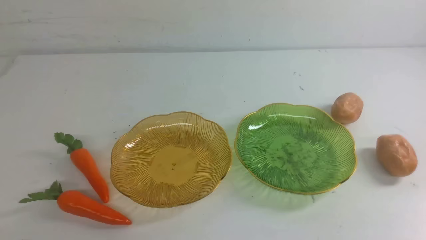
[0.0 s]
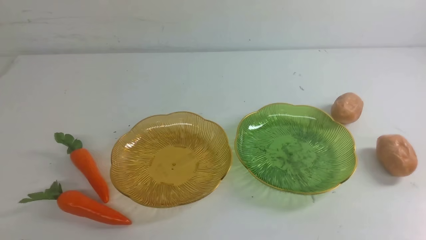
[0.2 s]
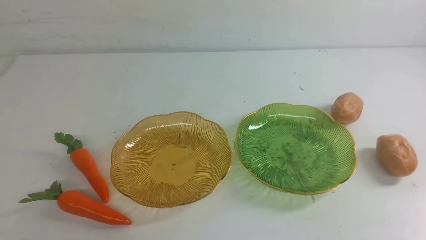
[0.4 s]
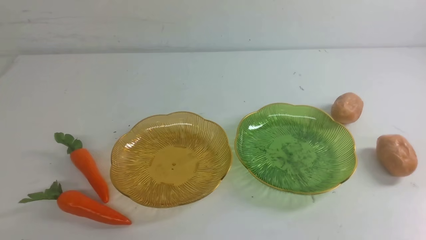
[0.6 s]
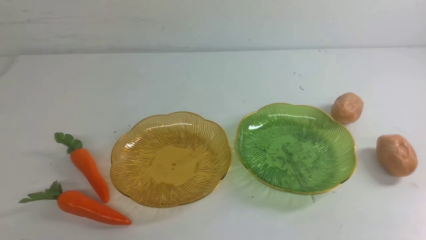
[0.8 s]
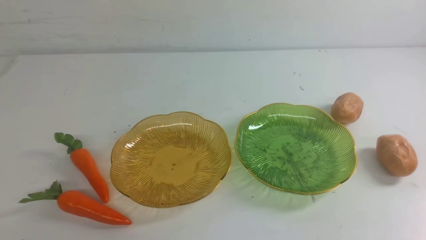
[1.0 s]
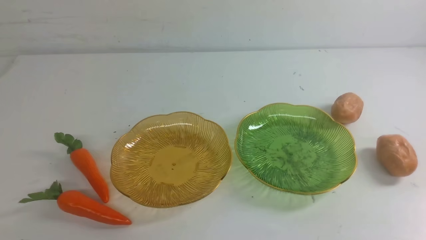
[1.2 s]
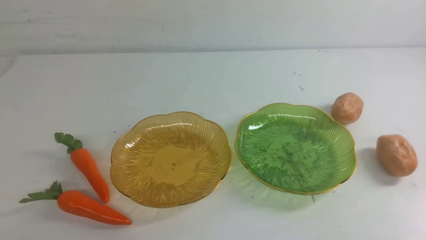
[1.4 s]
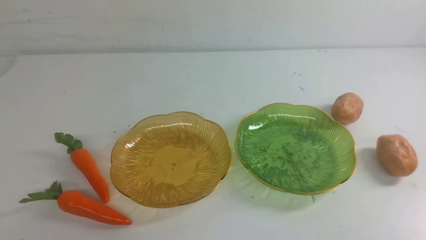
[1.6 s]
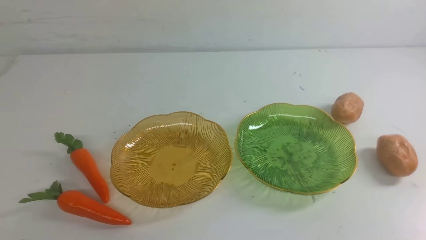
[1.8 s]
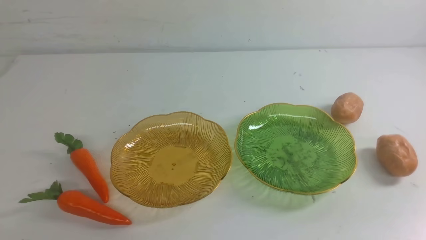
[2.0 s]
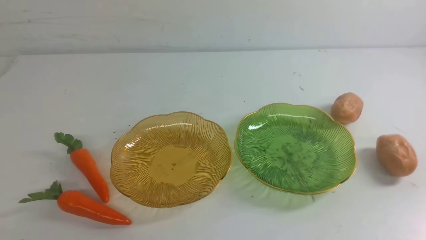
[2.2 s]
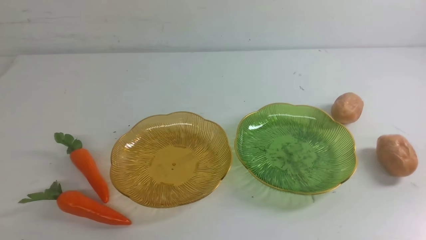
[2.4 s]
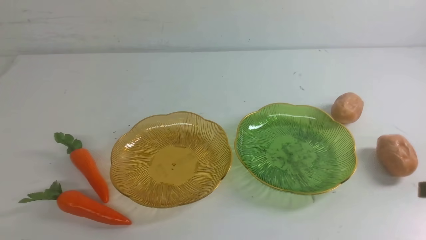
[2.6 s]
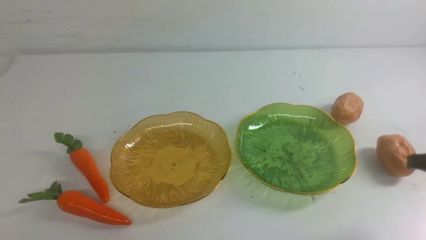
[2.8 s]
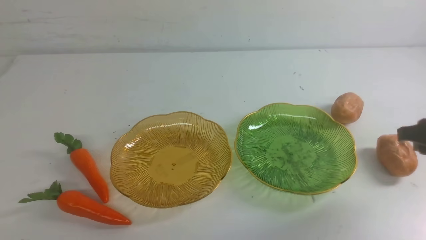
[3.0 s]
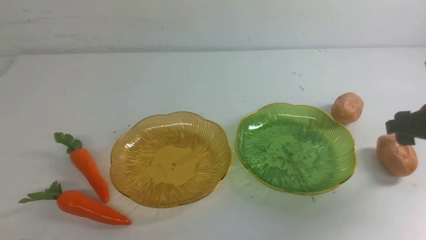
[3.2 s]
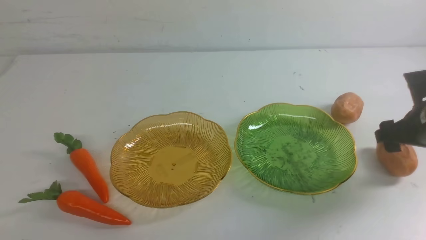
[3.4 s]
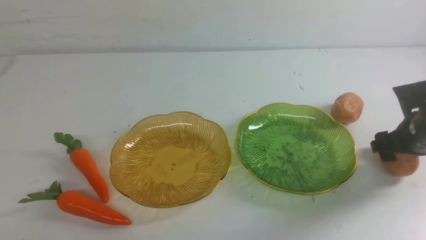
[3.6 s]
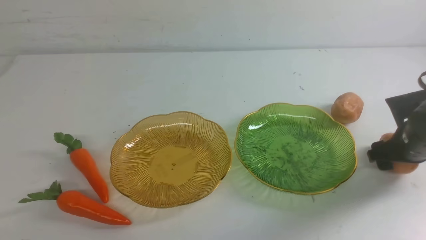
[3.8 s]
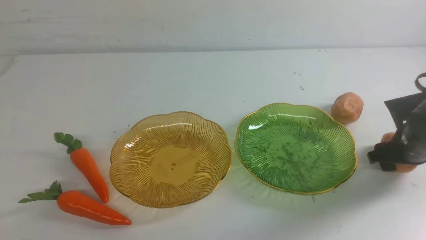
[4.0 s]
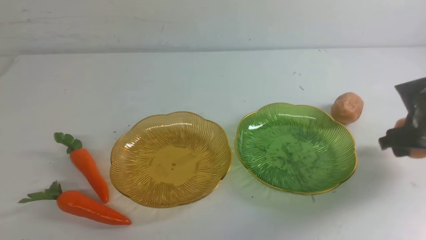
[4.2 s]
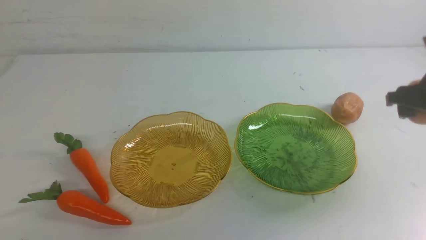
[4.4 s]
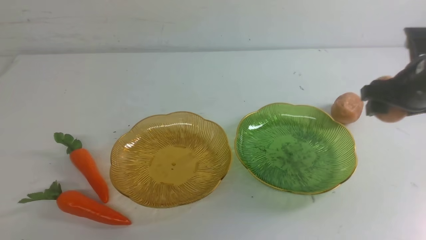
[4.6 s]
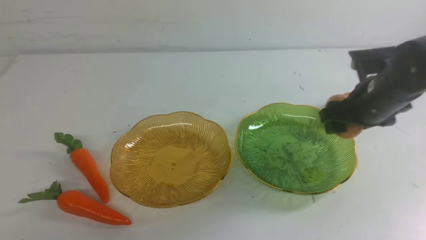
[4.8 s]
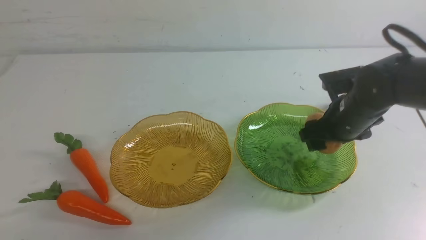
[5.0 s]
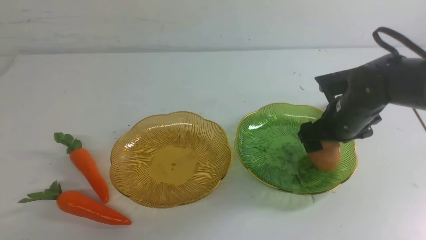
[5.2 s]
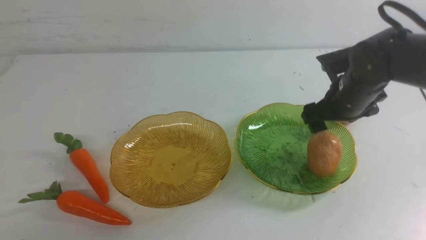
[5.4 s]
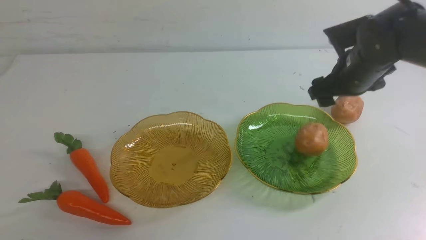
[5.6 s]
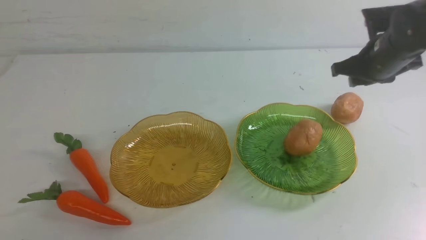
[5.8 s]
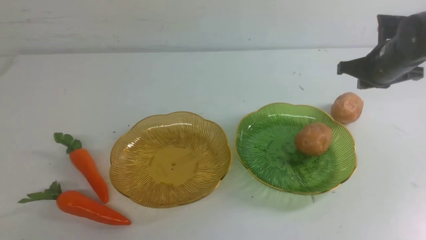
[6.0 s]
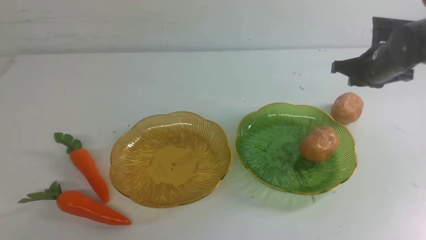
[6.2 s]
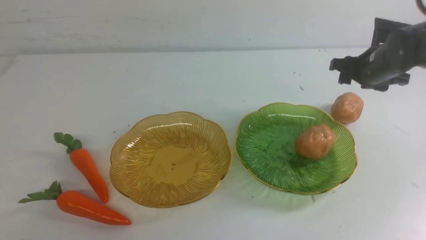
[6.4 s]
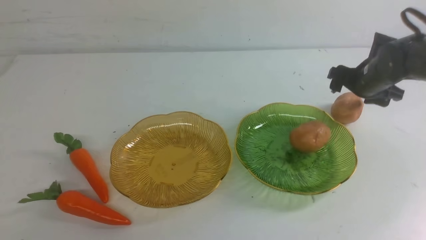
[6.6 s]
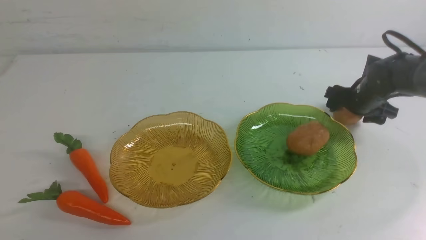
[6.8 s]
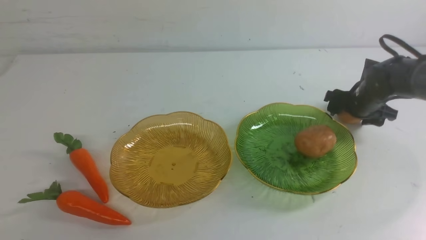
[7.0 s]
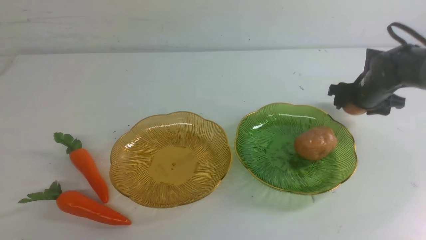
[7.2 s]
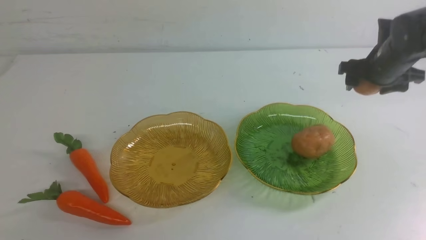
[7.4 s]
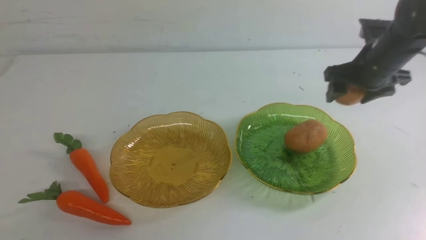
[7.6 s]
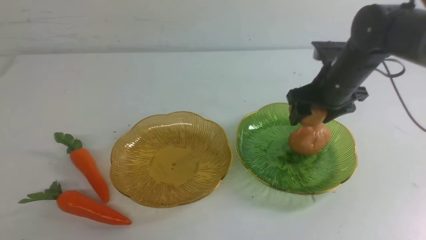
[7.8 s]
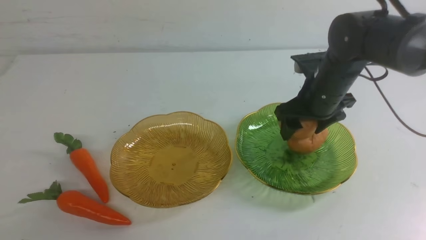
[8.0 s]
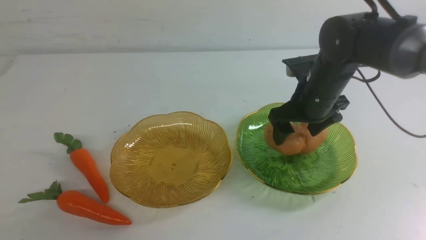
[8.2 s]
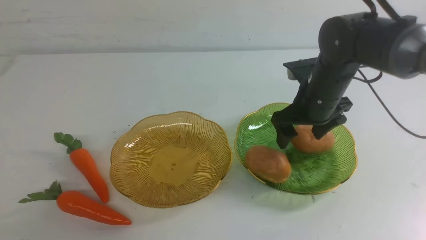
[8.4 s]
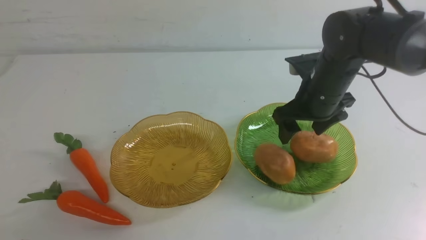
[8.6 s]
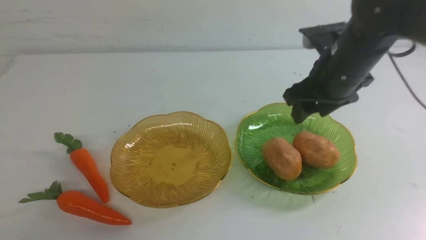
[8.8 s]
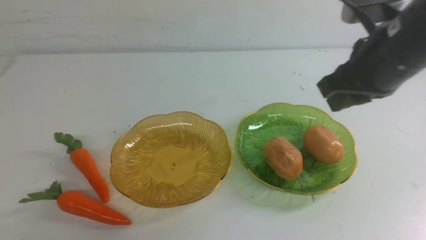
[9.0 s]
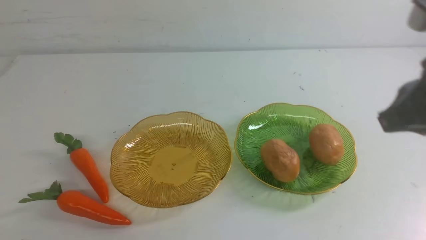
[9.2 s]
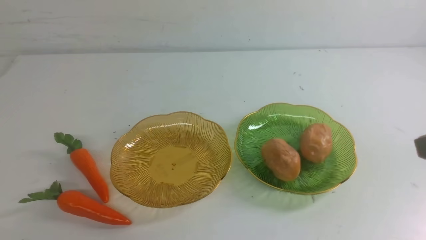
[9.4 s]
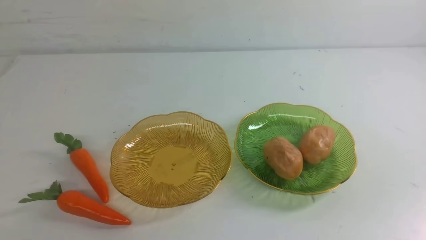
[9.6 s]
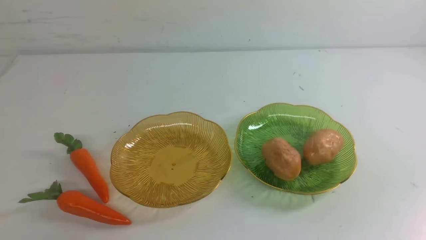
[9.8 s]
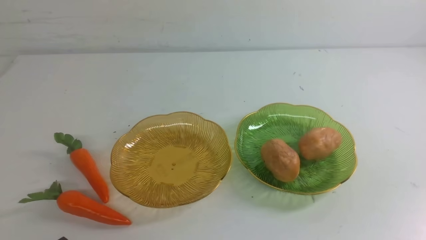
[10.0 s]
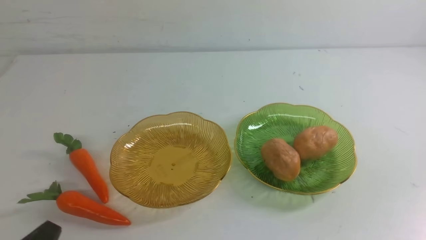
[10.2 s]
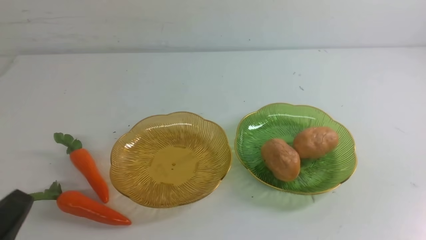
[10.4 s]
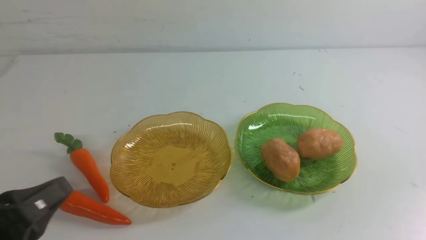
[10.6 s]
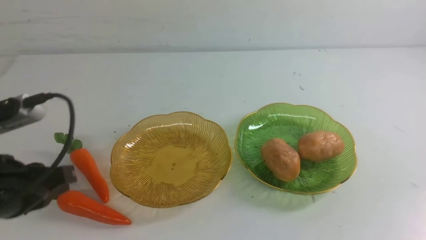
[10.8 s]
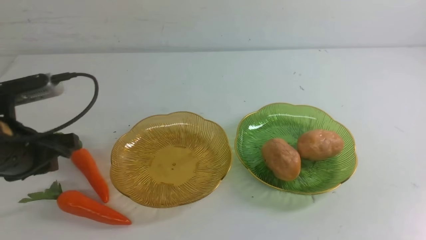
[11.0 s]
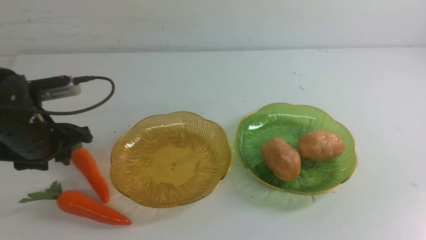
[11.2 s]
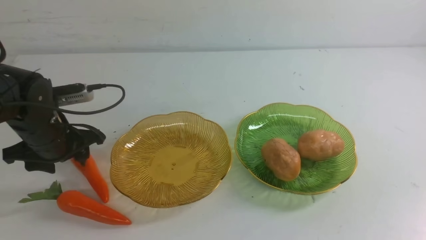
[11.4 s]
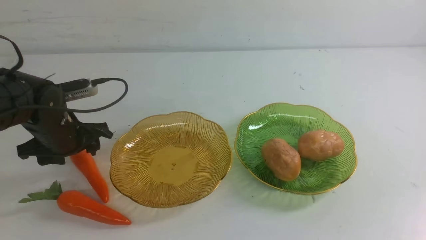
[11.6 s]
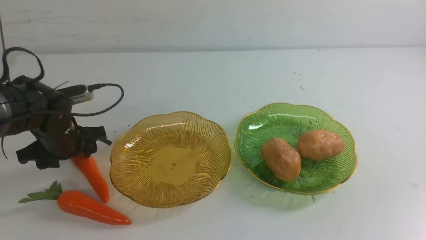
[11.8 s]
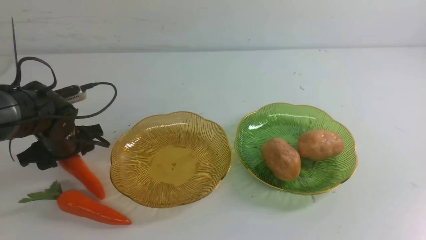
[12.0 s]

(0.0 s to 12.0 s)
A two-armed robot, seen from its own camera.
Step, 0.0 s - 8.2 s: Grab a potato with your right arm and put it on the right plate.
1.6 s - 3.0 s: The right gripper shifts about 20 cm forward, and opens its fingers.
3.0 s - 4.4 s: The right gripper goes approximately 5 cm forward, and travels downward and back again, some 10 cm each way.
4.4 s - 6.0 s: The right gripper shifts approximately 10 cm forward, goes to the left and returns, roughly 10 cm each way, and closes up.
6.0 s - 7.6 s: The right gripper travels downward and back again, about 10 cm each way, and opens.
7.6 s - 9.0 s: The right gripper moves backward and upward, approximately 20 cm, and closes up.
9.0 s - 10.4 s: The right gripper moves backward and to the right, some 25 cm. The left gripper goes approximately 10 cm upward.
10.4 s - 12.0 s: The left gripper travels forward and downward by roughly 30 cm, and opens its fingers.

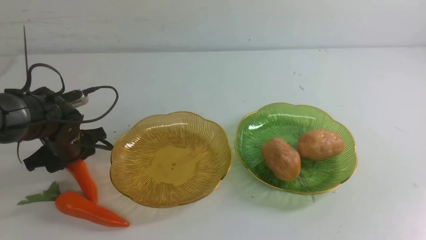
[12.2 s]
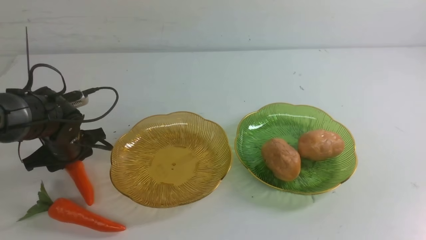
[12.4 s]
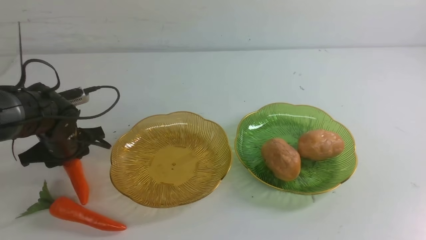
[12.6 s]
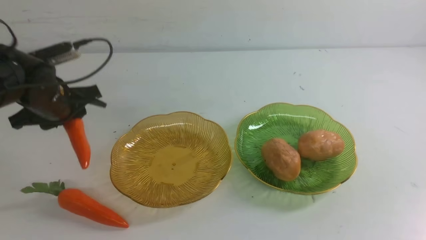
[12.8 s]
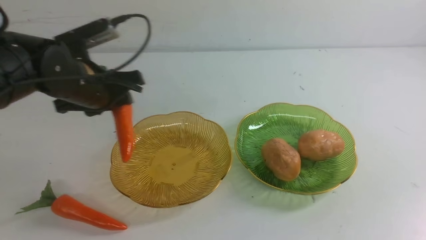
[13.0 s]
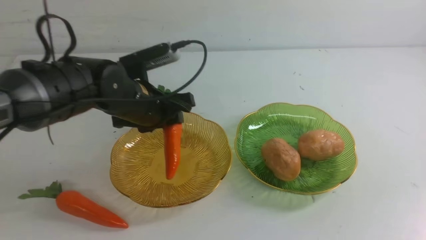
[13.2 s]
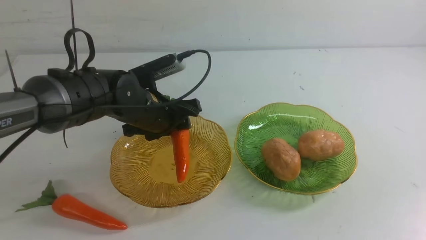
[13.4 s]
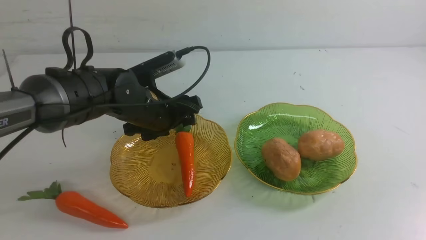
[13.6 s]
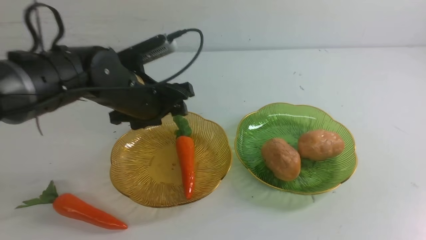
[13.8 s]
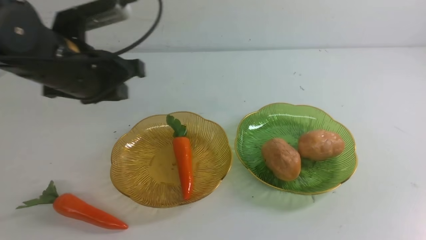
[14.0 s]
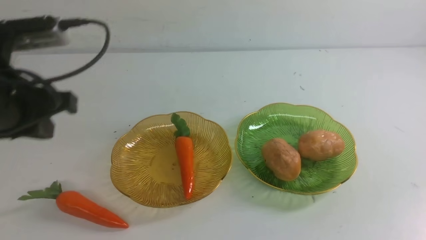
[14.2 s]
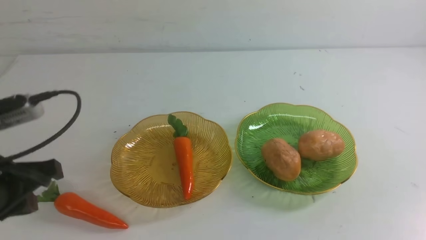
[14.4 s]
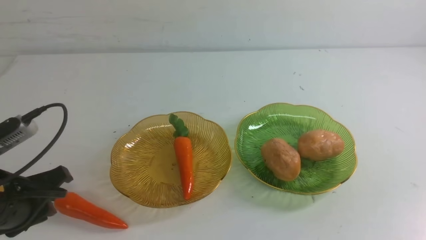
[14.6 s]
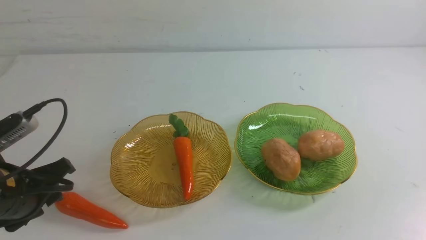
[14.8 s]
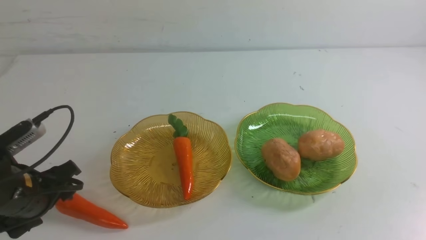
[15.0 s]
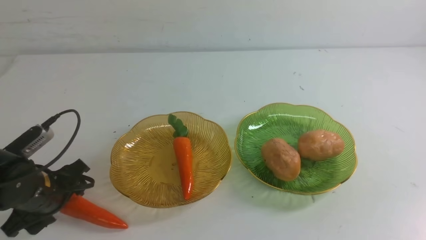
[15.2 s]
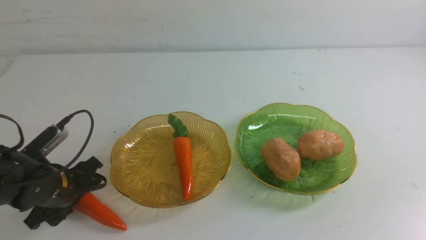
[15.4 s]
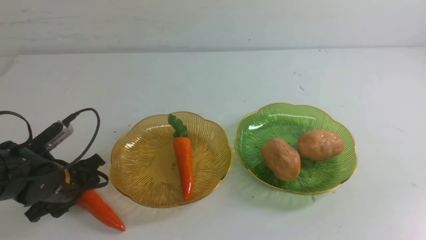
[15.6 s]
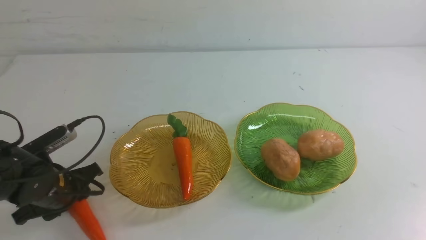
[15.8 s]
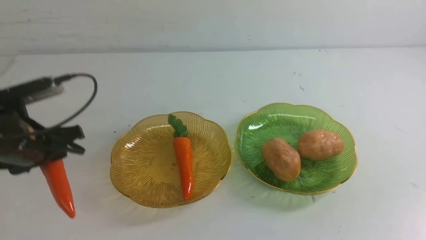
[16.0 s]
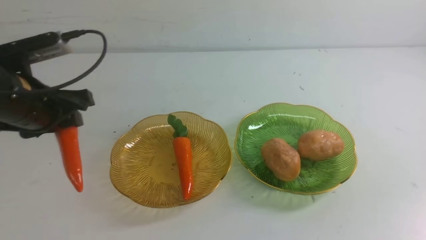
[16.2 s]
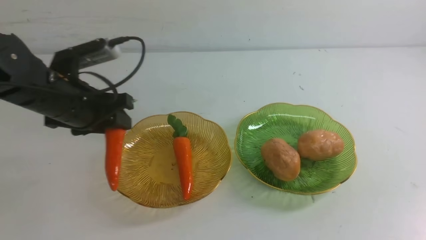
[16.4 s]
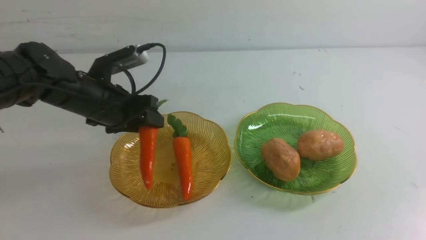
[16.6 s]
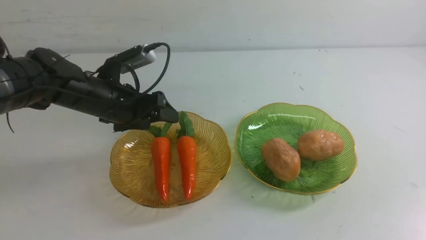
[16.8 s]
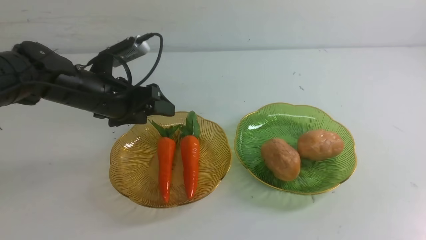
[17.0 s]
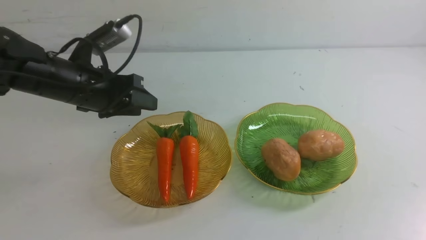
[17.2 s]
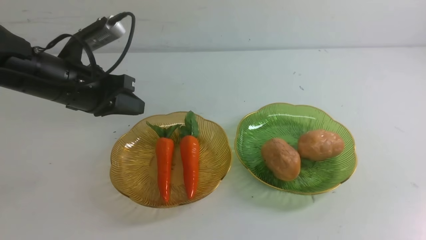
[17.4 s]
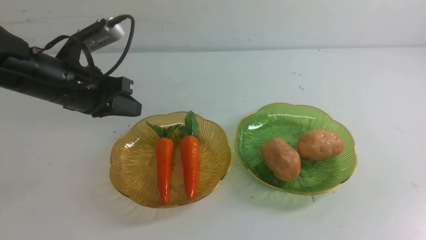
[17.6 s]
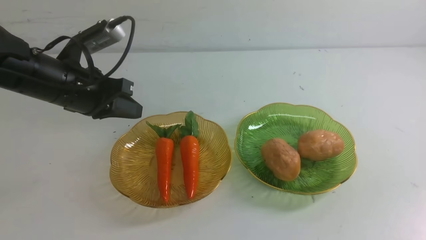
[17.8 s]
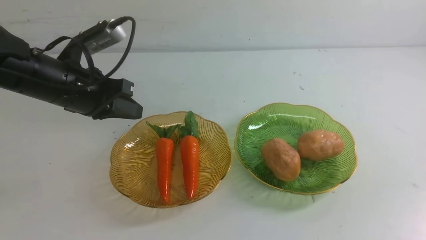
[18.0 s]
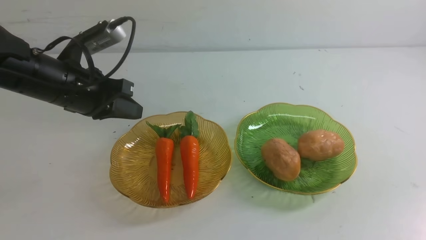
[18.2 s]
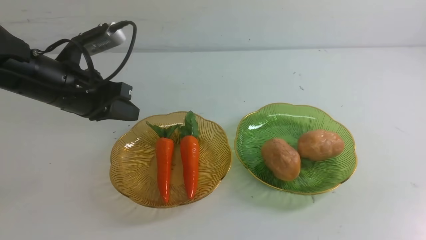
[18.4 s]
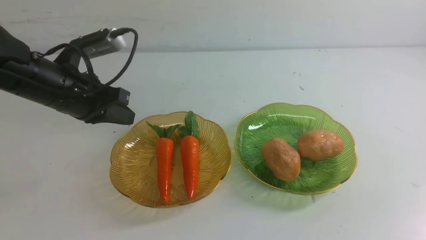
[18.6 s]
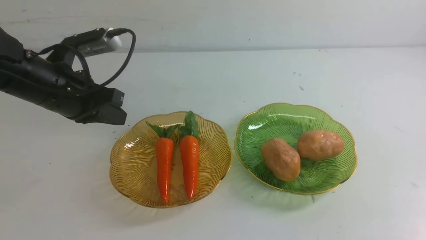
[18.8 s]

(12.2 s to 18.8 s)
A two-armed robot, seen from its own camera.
Step, 12.2 s - 16.6 s: use the left arm to grab a carrot and put it into the left plate.
12.2 s - 13.8 s: The left gripper moves upward and to the right, approximately 20 cm.
13.8 s - 15.4 s: The left gripper is displaced downward, to the left and backward by some 20 cm, and opens.
15.4 s - 17.2 s: The left gripper goes approximately 15 cm upward and forward, and closes up.
17.2 s - 18.8 s: The left gripper changes place by some 5 cm.
